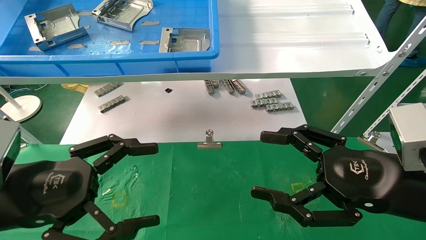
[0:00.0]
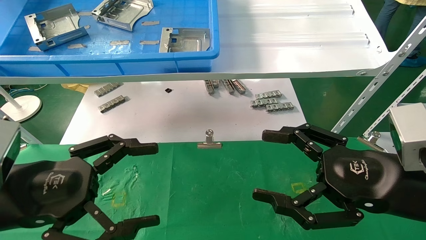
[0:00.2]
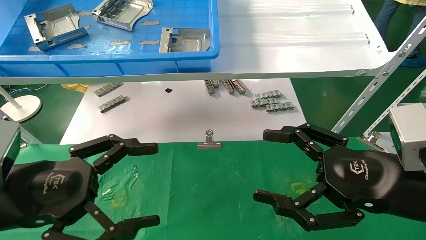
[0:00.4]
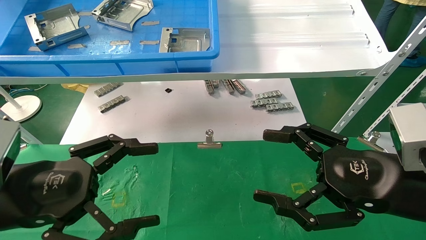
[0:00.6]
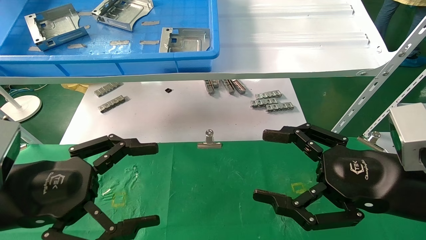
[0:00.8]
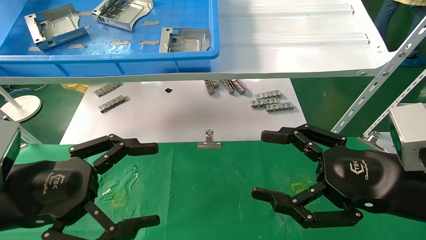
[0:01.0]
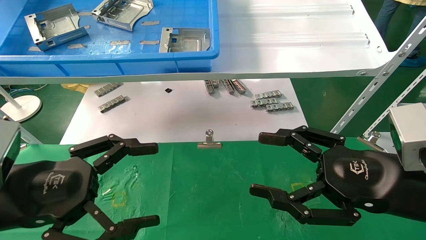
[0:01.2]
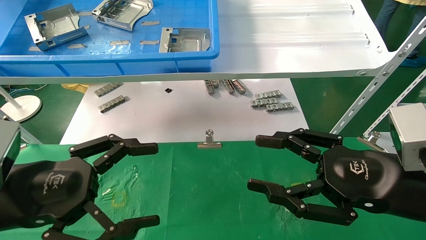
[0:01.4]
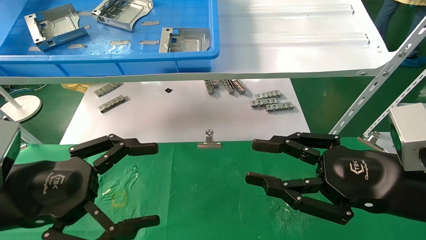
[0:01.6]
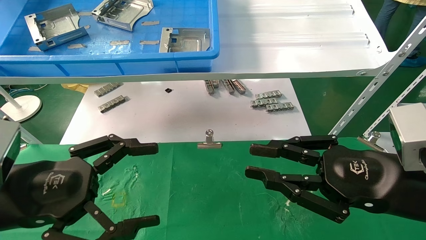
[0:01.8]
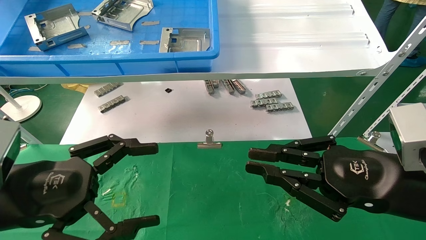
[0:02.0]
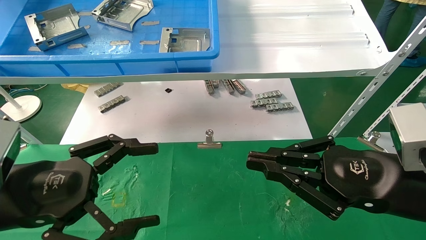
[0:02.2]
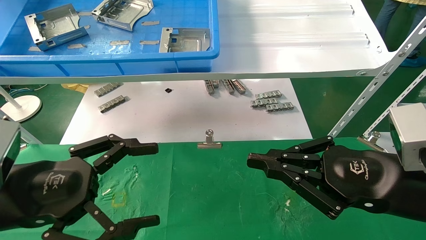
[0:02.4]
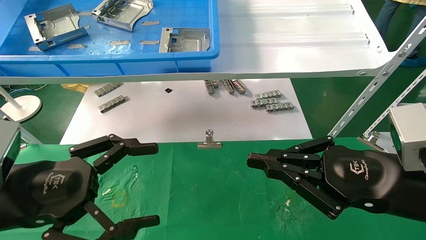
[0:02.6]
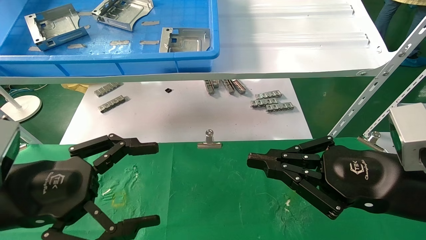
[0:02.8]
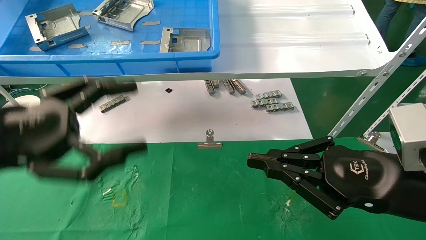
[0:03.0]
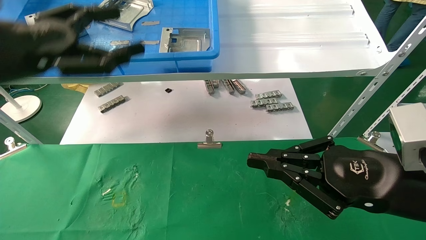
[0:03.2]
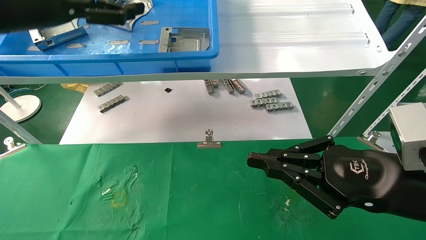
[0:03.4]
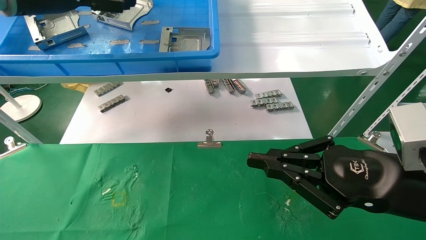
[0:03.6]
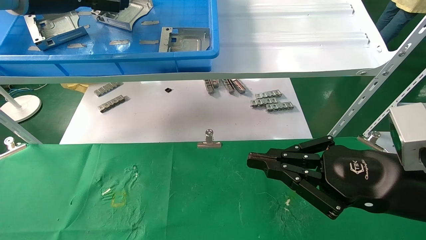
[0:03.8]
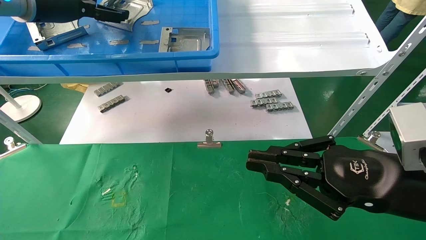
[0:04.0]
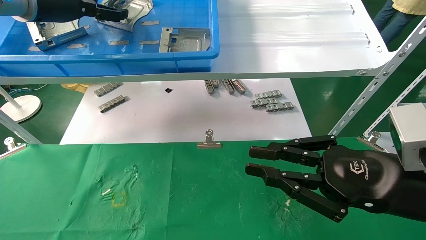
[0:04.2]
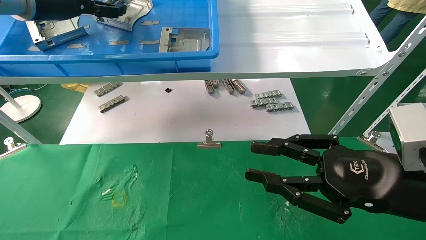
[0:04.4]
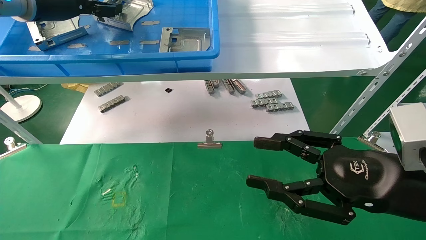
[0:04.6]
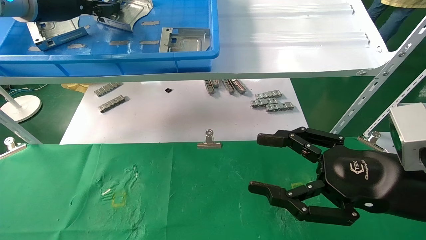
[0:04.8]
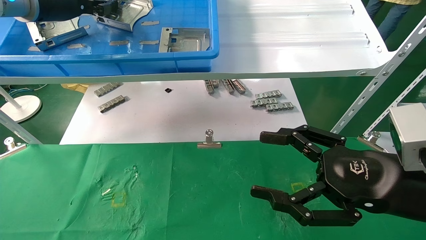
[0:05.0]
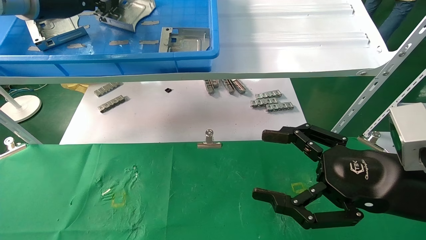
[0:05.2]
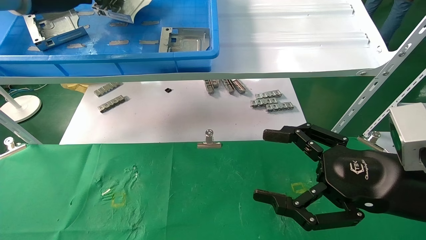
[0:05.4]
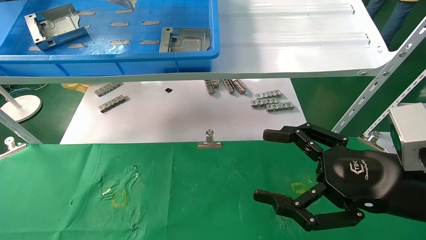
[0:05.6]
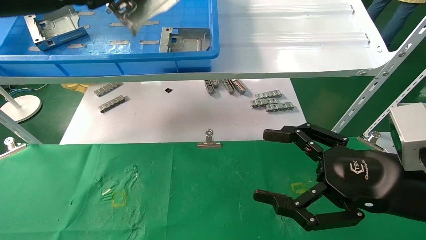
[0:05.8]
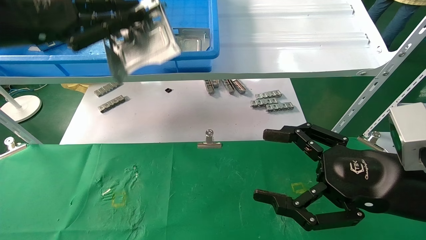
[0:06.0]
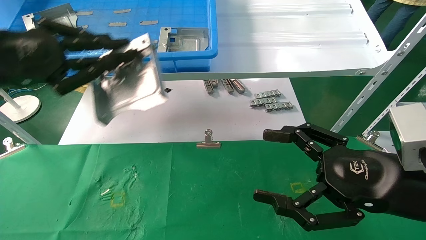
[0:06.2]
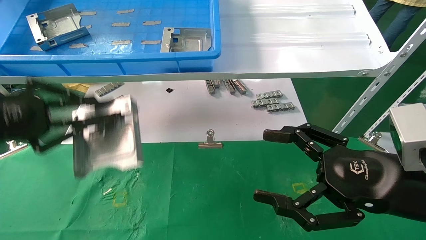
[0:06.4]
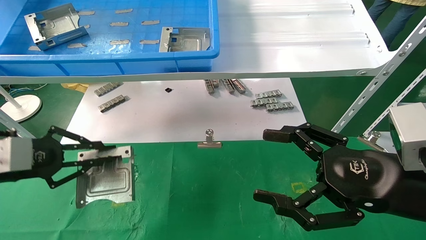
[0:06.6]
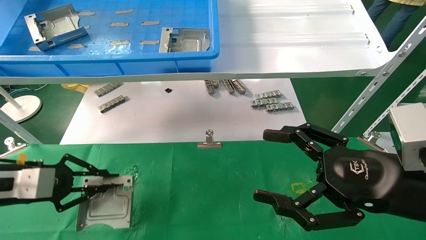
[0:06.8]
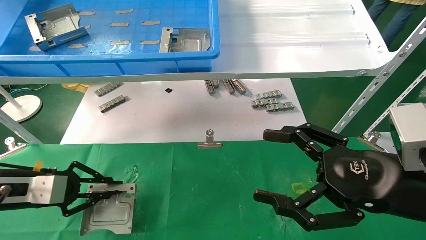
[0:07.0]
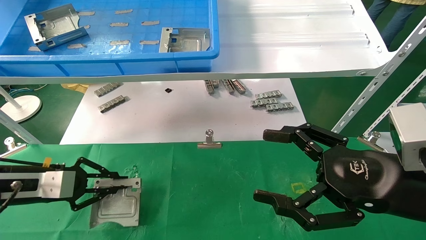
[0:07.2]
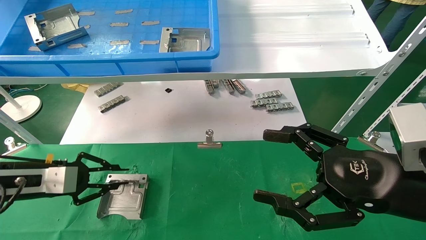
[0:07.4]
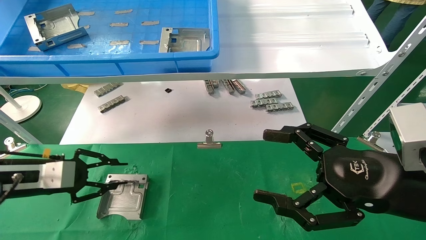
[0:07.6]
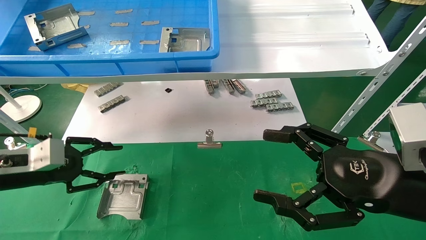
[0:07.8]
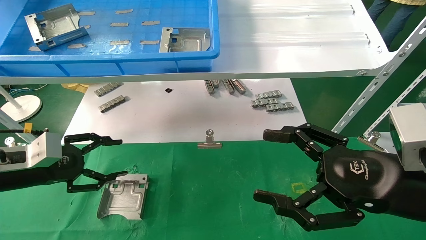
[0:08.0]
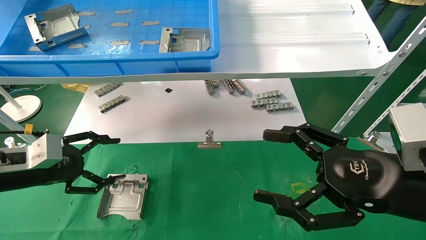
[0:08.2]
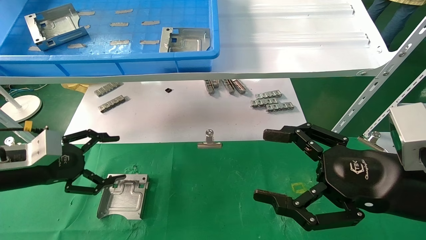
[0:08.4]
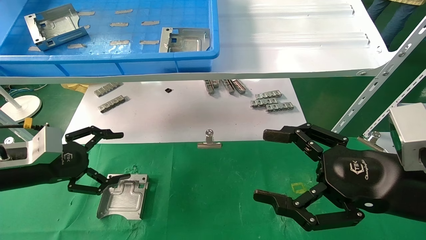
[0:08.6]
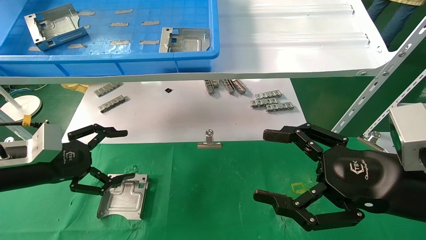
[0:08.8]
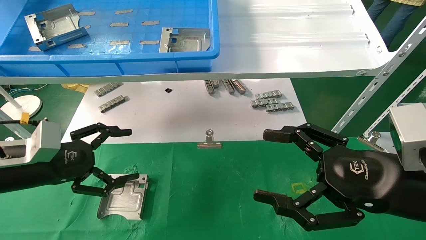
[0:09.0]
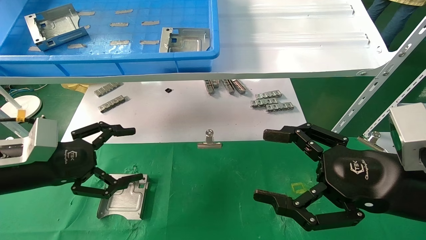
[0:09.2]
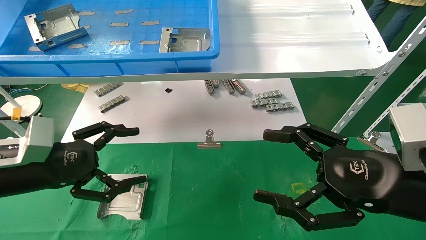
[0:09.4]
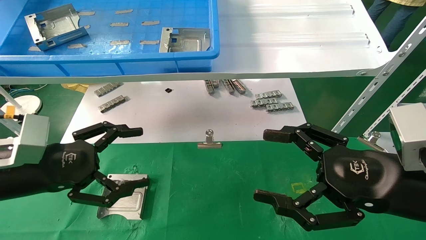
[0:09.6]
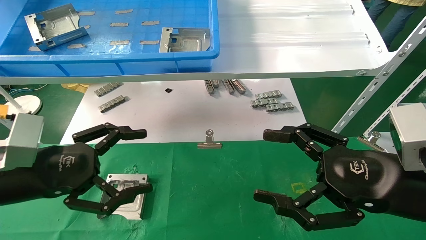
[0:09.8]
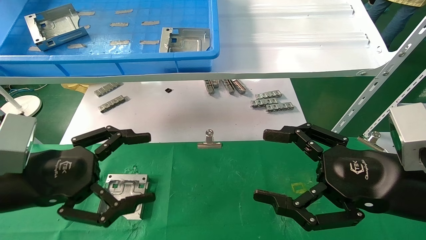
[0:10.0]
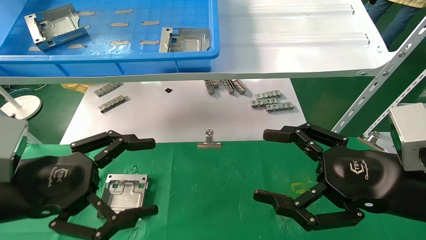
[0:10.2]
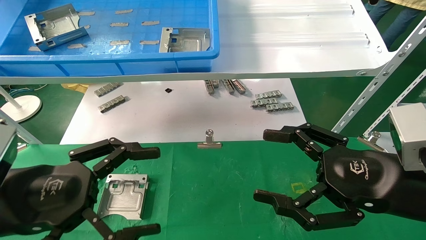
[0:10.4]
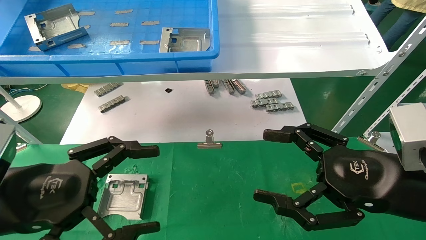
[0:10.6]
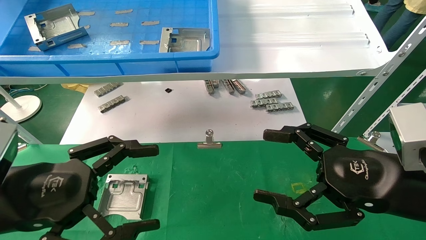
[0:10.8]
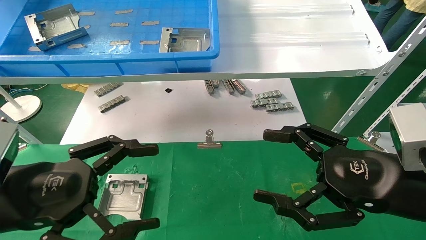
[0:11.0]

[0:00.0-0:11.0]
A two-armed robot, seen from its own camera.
Task of the whole recording: use the mechanical arm to pick up the parts and place them on the table.
Step, 0:03.0 to 0:05.2: Pick up the hard drive bracket from the feeding area.
Step, 0:05.4 to 0:07.8: Place the hard drive bracket into the box.
0:00.0 to 0:01.6: Both grippers stay about where they are.
0:01.6 to 0:03.2: The left gripper goes approximately 15 cm upward and forward; the right gripper closes.
0:03.2 to 0:04.8: The left gripper heads forward and upward, covering approximately 15 cm, and closes its fingers. The right gripper opens.
0:04.8 to 0:06.2: The right gripper opens up. The left gripper is displaced backward and downward by approximately 20 cm, and closes.
0:06.2 to 0:07.8: The left gripper moves downward, some 20 cm.
0:07.8 to 0:09.4: The left gripper heads to the right and backward, covering roughly 10 cm, and opens its fingers.
0:09.4 to 0:11.0: The left gripper heads backward, covering about 10 cm.
